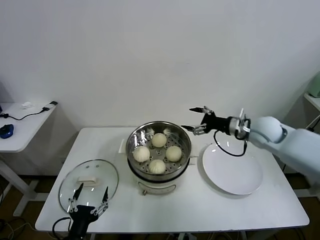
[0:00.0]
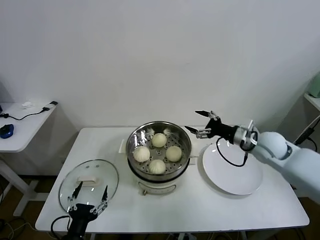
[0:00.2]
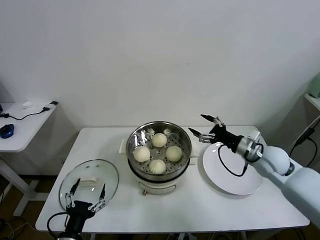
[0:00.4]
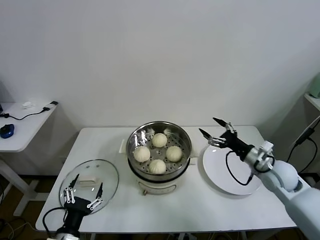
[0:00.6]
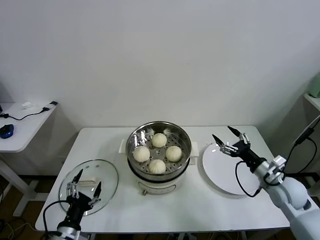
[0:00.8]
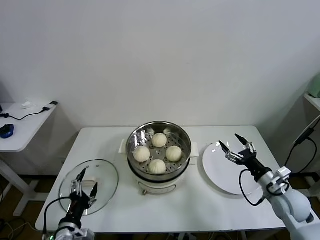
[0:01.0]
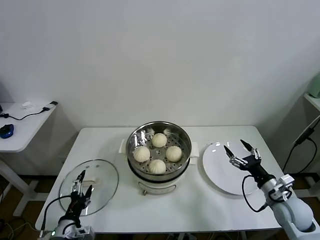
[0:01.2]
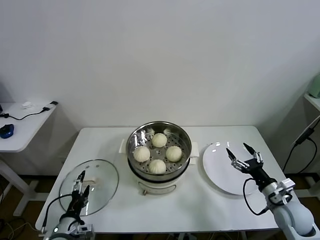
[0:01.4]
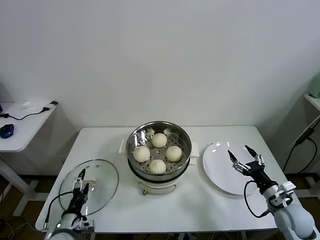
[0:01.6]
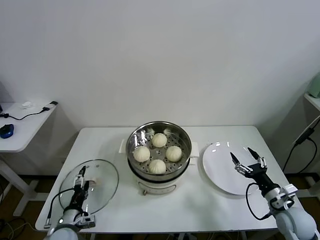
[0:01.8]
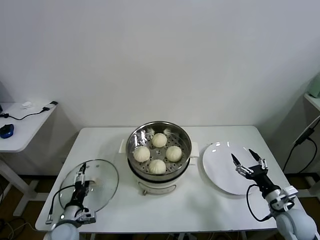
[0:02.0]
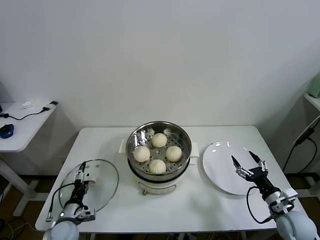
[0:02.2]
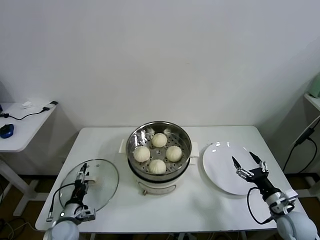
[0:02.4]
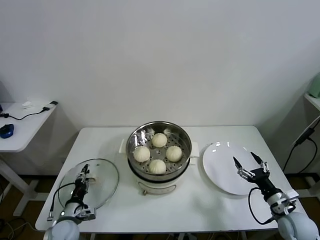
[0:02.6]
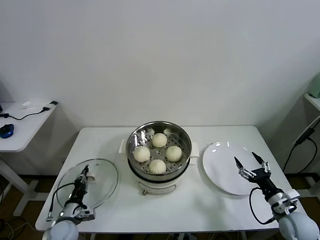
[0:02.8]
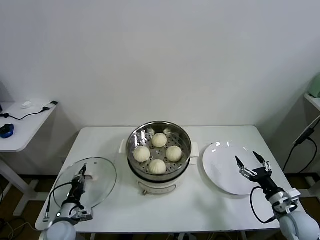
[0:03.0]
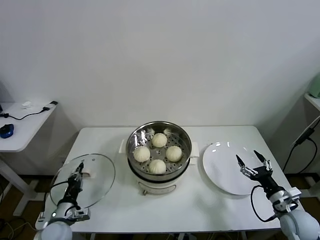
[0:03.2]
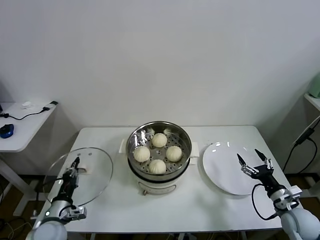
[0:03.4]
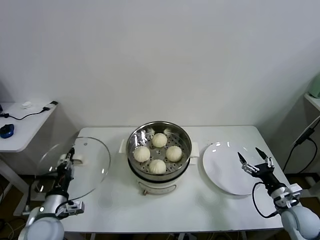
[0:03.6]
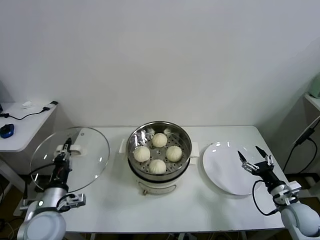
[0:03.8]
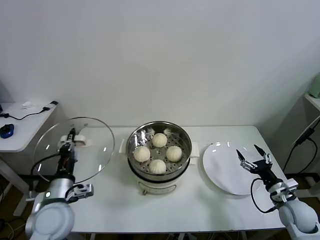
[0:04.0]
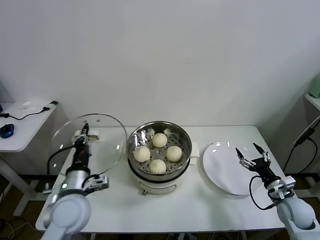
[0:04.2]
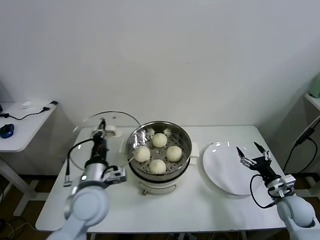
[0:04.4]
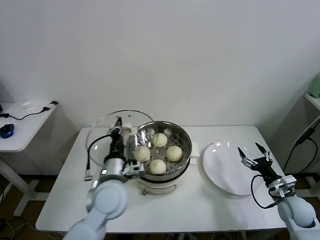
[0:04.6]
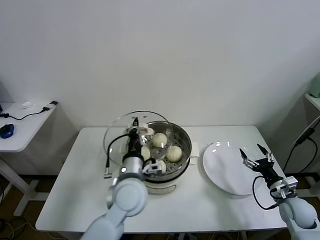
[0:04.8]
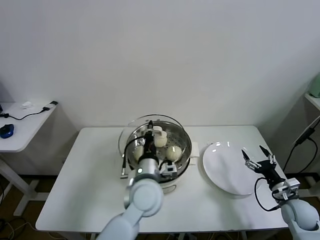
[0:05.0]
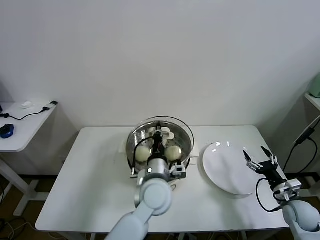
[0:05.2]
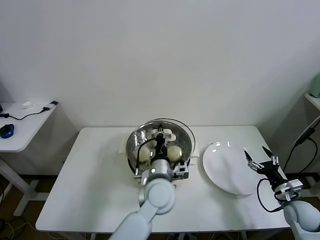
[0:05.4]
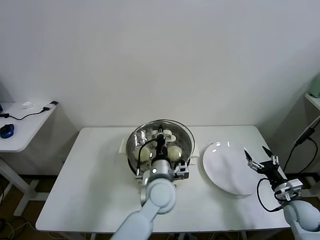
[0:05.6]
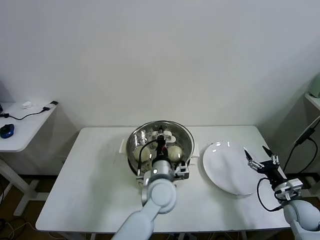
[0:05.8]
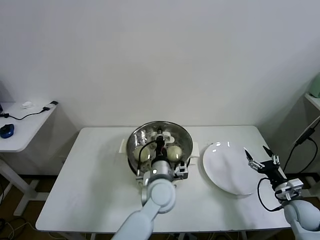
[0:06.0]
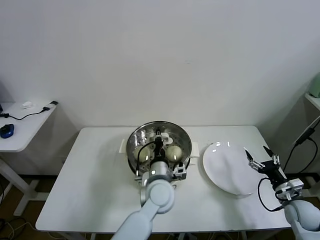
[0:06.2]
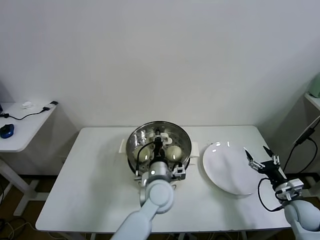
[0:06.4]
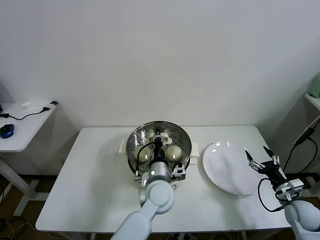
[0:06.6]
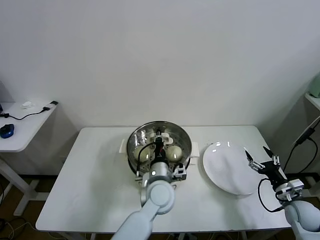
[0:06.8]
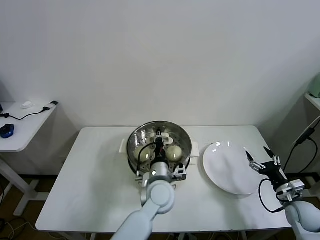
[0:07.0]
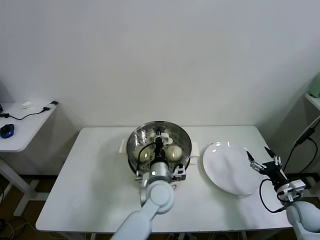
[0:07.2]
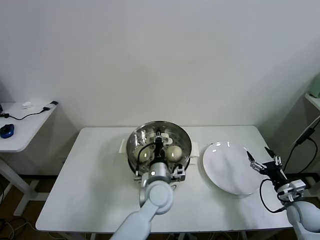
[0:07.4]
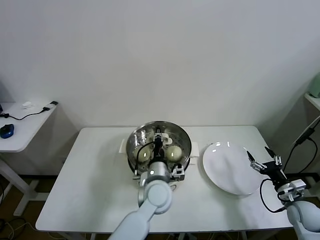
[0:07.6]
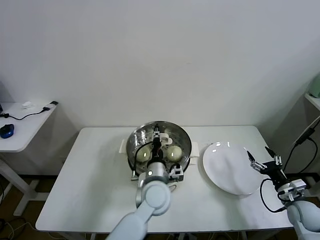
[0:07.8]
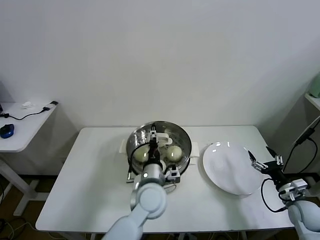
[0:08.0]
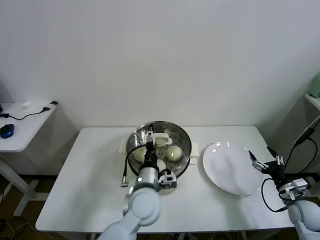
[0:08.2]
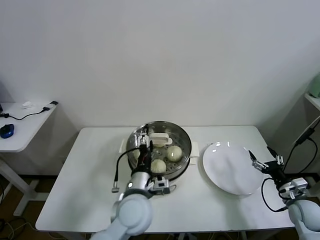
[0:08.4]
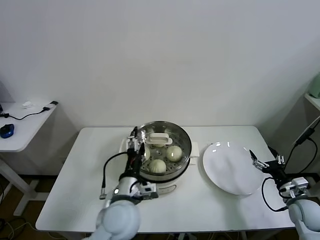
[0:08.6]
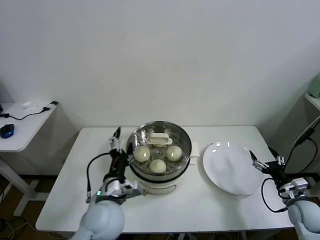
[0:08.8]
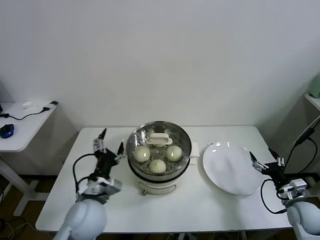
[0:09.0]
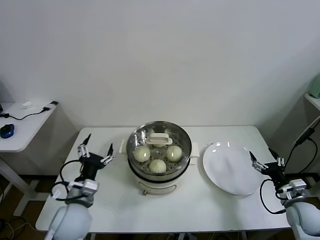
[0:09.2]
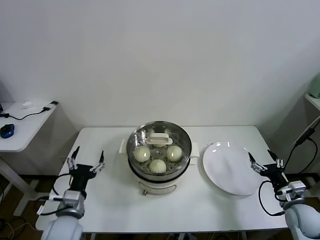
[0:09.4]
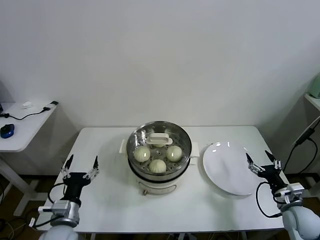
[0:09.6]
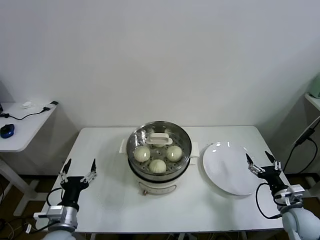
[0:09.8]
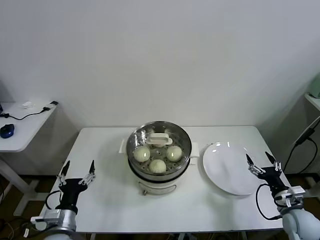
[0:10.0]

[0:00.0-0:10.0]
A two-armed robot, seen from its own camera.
Task of the whole recording: take steamed baozi put them in steamer.
Step, 0:00.0 to 0:02.8: Grasp the pot lid with left gripper.
Step, 0:03.0 to 0:08.0: Place the pot lid on the steamer with left gripper.
0:00.0 to 0:01.4: The left gripper goes about 10 cm forward and to the left. The right gripper is displaced backward and downward by roughly 25 cm.
0:01.4 to 0:02.8: The left gripper goes some 10 cm forward and downward, and closes.
0:02.8 to 0:04.2: The left gripper is displaced upward and to the right by some 20 cm.
0:04.2 to 0:05.8: The left gripper is displaced to the right by approximately 25 cm.
0:05.8 to 0:07.2: The grippers stay close to where they were, moving slightly.
0:07.2 to 0:08.6: The left gripper travels to the left and backward by about 10 cm, and opens.
0:08.6 to 0:10.0: The left gripper shifts about 20 cm to the left and downward.

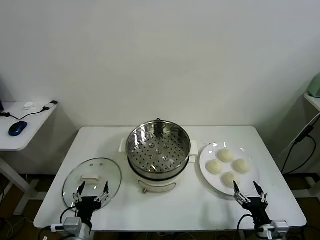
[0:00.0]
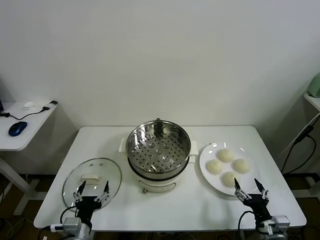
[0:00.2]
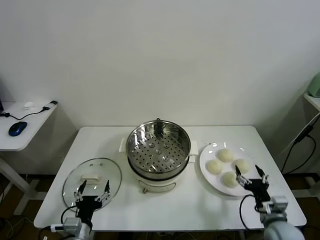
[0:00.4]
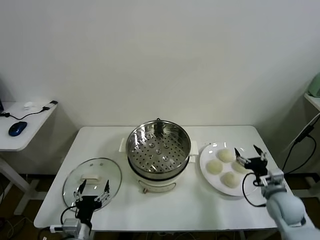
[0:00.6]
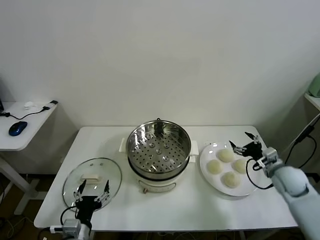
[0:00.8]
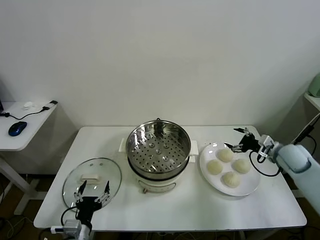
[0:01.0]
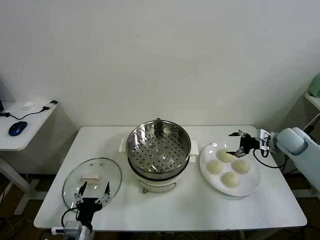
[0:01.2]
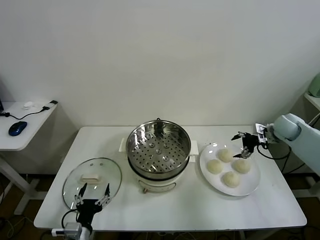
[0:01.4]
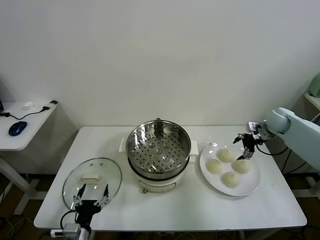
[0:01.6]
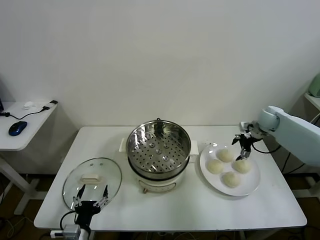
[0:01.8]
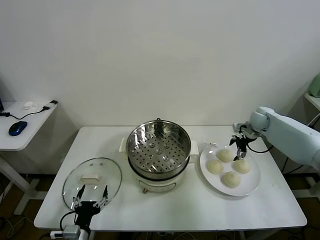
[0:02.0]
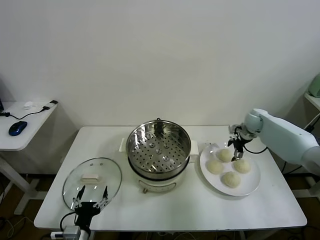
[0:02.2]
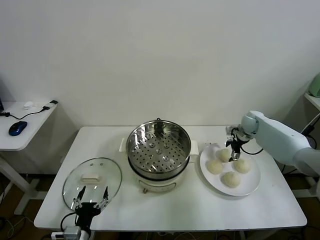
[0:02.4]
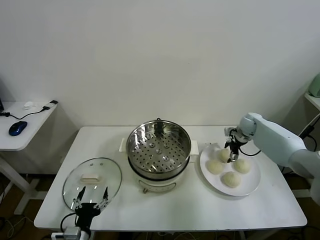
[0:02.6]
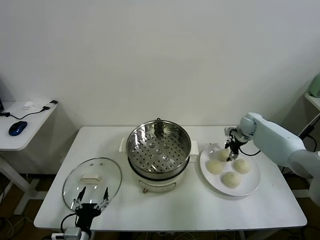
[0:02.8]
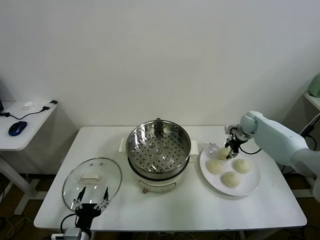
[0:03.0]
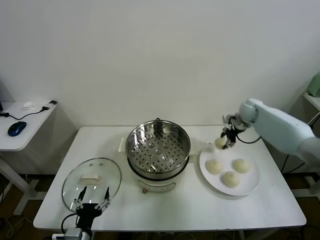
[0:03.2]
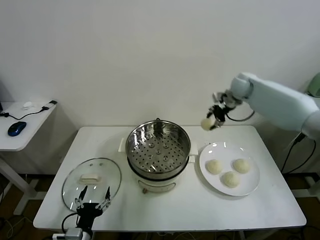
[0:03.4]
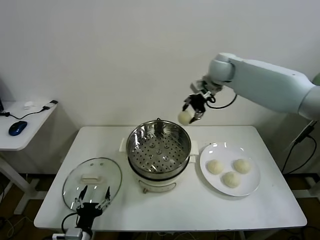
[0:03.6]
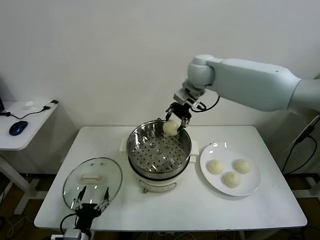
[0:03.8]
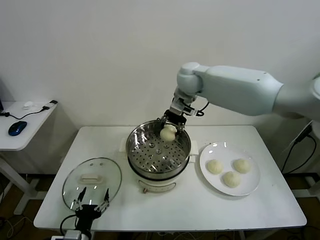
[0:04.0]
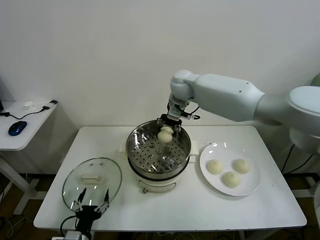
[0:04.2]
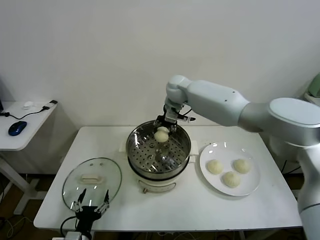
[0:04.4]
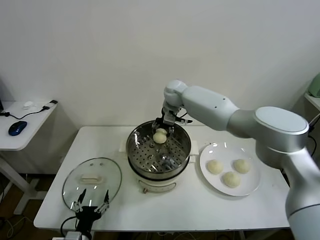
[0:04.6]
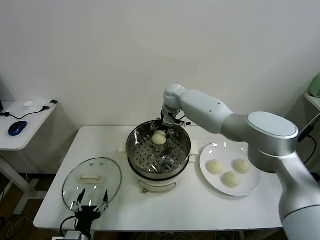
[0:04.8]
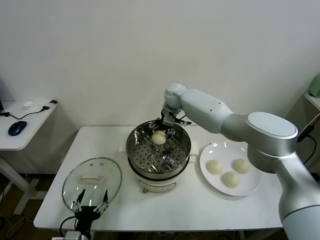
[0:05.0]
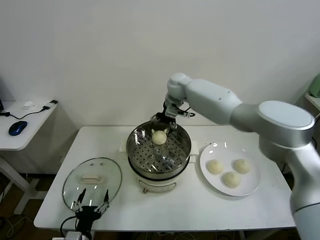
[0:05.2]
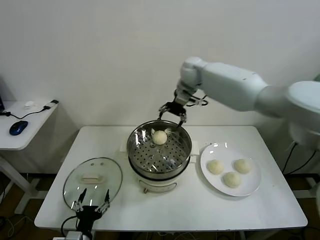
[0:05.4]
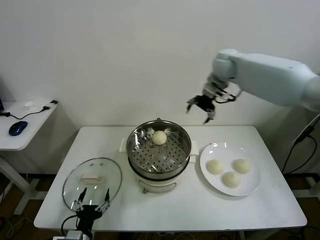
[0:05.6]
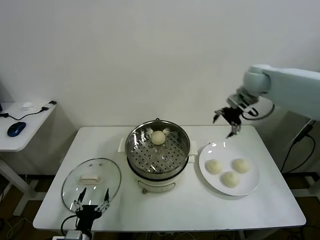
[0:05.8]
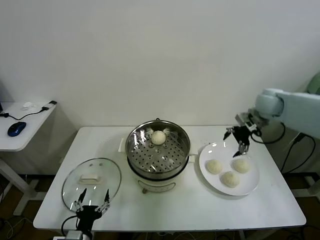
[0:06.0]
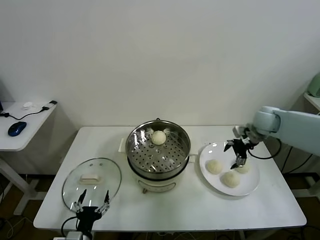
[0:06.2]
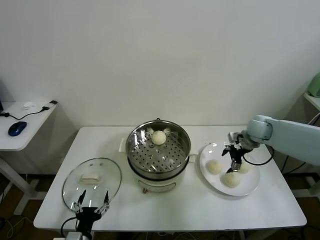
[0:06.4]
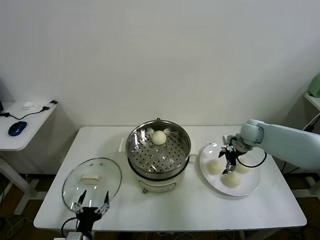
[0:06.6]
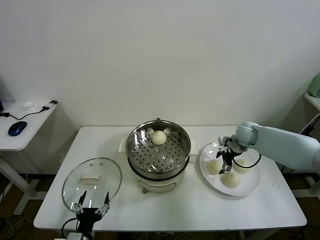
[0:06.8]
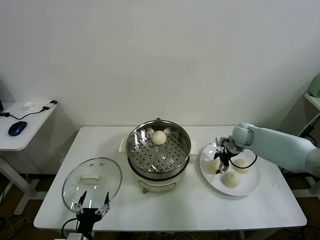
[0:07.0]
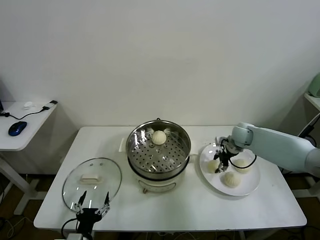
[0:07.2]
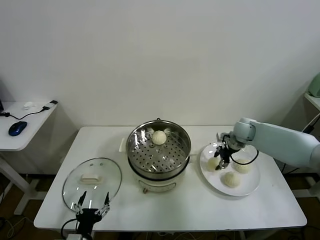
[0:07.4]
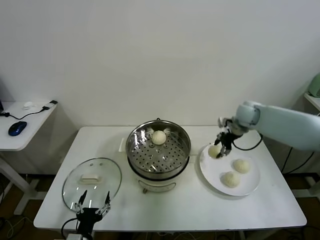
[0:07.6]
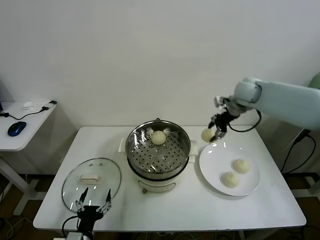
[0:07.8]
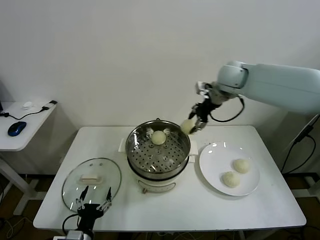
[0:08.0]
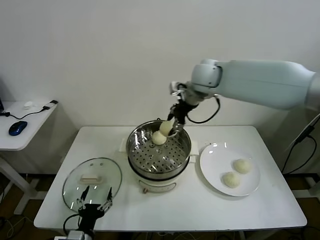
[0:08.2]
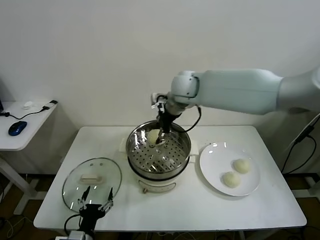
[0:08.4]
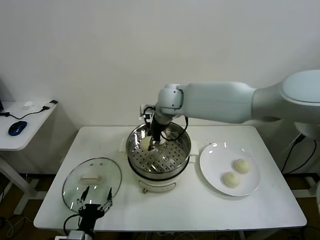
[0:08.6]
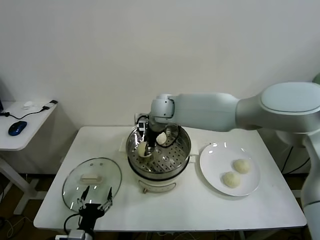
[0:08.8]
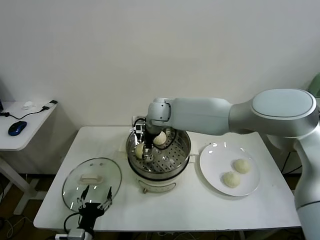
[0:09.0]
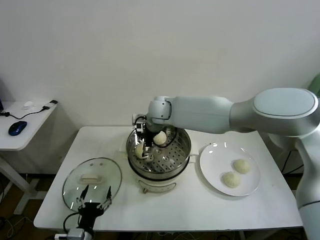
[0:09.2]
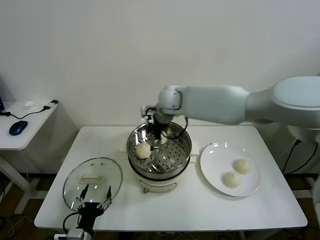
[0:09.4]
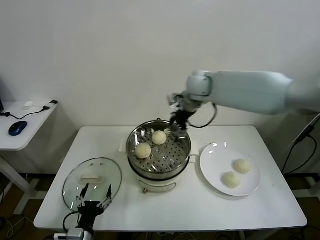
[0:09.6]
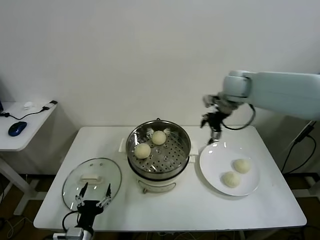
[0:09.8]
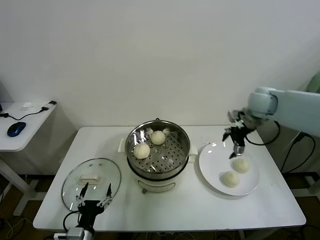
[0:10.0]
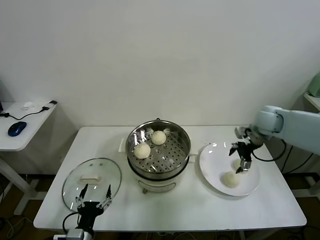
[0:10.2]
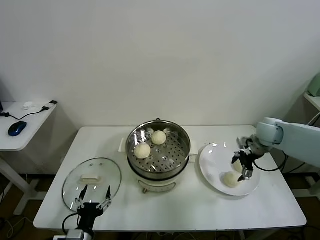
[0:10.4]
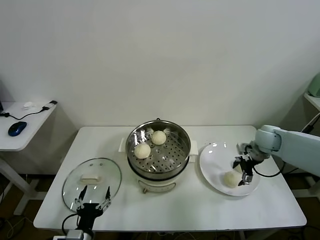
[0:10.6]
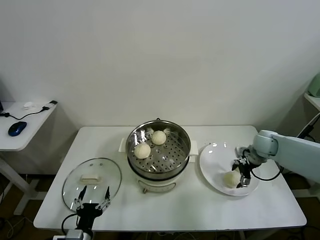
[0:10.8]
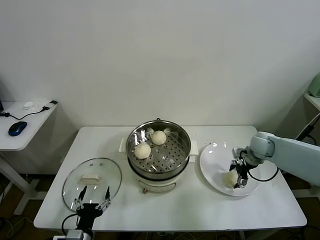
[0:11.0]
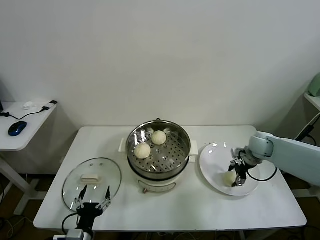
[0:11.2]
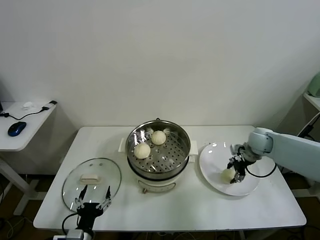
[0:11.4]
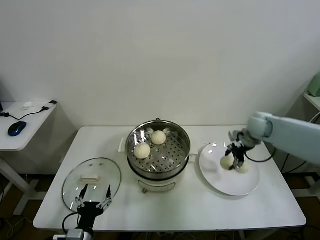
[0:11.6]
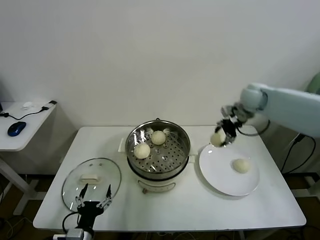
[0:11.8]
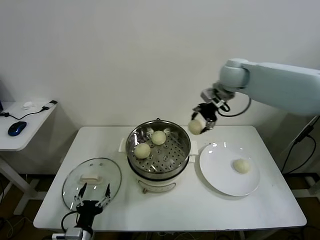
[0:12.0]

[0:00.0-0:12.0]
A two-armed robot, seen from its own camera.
Task of the whole recording: take steamed baozi put them in steamer.
Step, 0:00.0 to 0:02.8: Grasp the baozi in the plate with right gripper.
Step, 0:03.0 to 0:05.0: Place the baozi on the steamer with right gripper.
Step, 0:05.2 to 0:07.0: Grasp the baozi in the plate with right gripper.
Step, 0:07.4 to 0:09.0: Place the baozi on the steamer with right gripper.
Step, 0:09.4 to 0:11.2: Grasp the baozi in the plate with right gripper.
0:01.6 to 0:03.0: The right gripper shifts roughly 5 cm to the left, and closes.
0:03.0 to 0:04.4: The right gripper goes roughly 35 cm to the left and upward.
0:04.4 to 0:06.0: The right gripper heads to the right, covering some 30 cm, and opens its fingers.
0:06.0 to 0:07.6: The right gripper goes downward and returns, roughly 15 cm each way, and closes its fingers.
0:07.6 to 0:09.0: The right gripper shifts some 35 cm to the left, and opens.
0:09.0 to 0:10.4: The right gripper is displaced to the right by some 40 cm.
0:10.4 to 0:12.0: The right gripper moves upward and to the left, about 30 cm, and closes.
